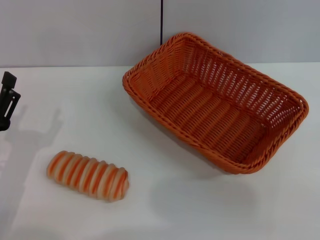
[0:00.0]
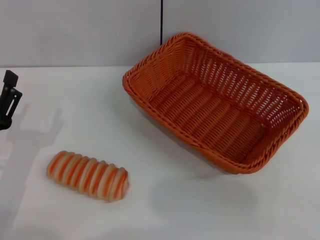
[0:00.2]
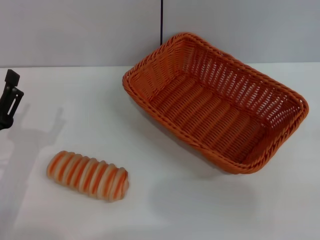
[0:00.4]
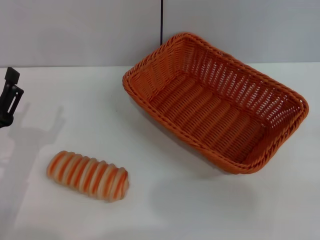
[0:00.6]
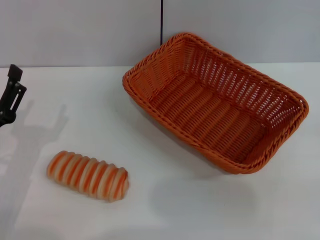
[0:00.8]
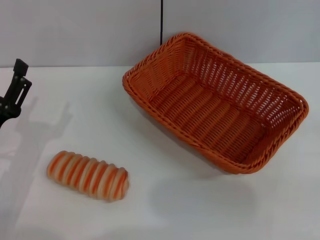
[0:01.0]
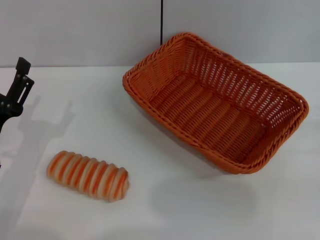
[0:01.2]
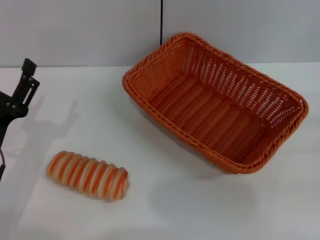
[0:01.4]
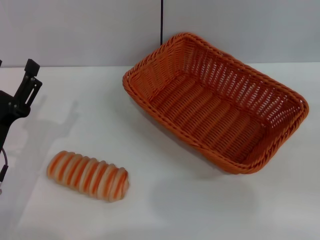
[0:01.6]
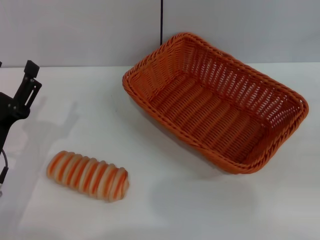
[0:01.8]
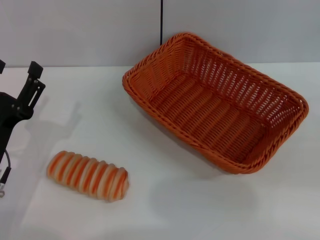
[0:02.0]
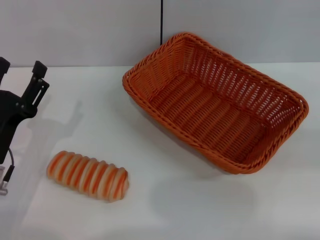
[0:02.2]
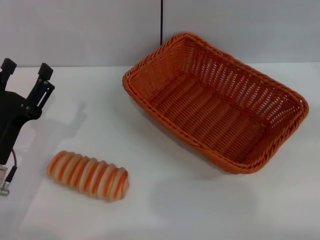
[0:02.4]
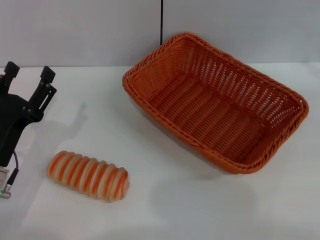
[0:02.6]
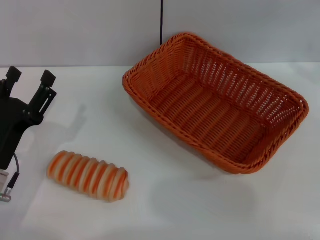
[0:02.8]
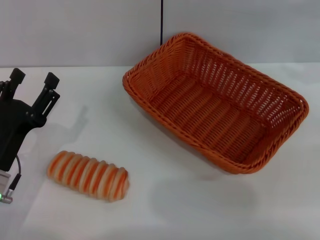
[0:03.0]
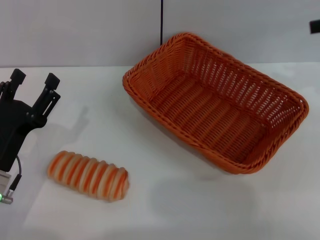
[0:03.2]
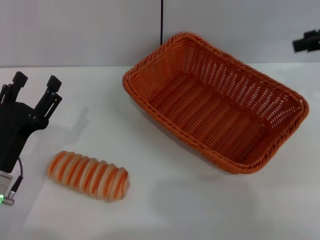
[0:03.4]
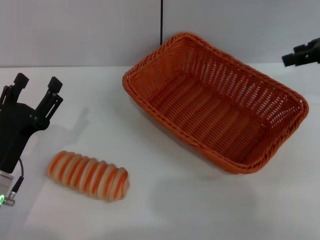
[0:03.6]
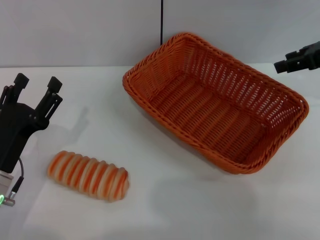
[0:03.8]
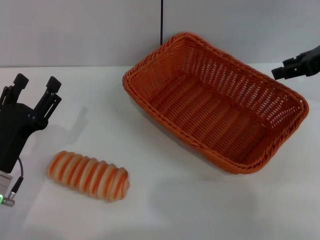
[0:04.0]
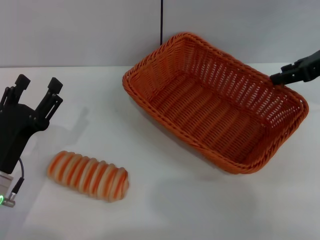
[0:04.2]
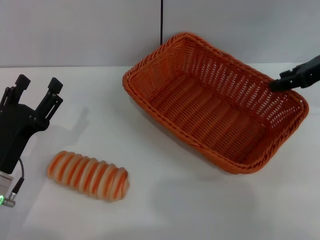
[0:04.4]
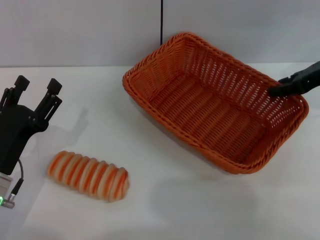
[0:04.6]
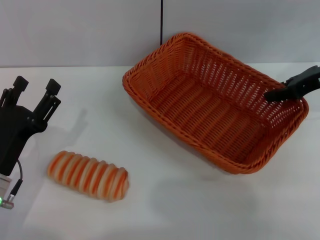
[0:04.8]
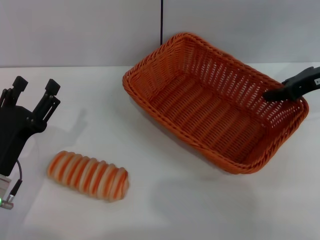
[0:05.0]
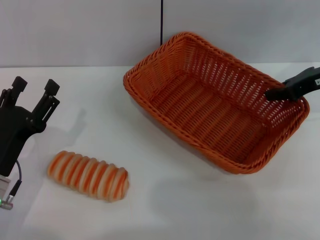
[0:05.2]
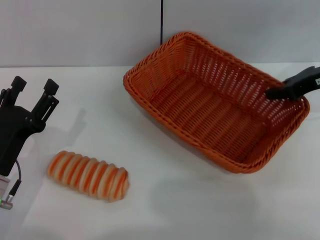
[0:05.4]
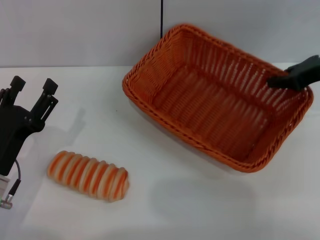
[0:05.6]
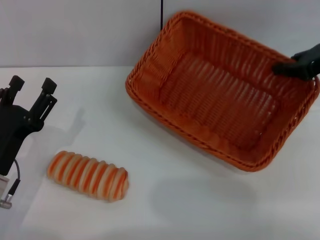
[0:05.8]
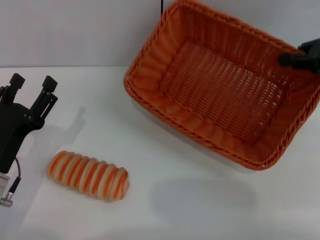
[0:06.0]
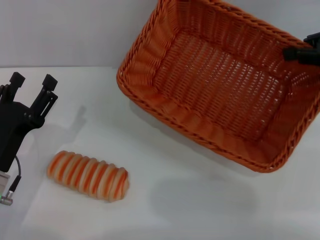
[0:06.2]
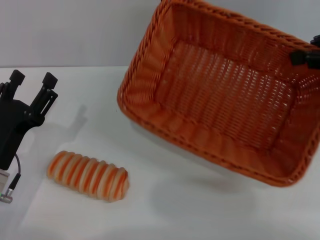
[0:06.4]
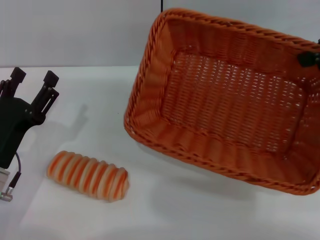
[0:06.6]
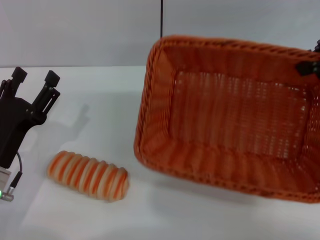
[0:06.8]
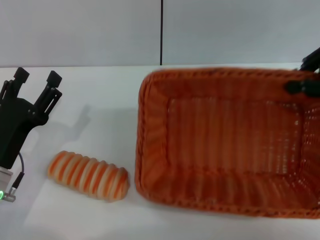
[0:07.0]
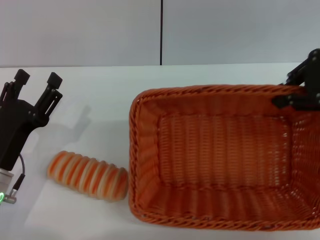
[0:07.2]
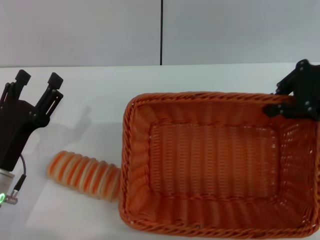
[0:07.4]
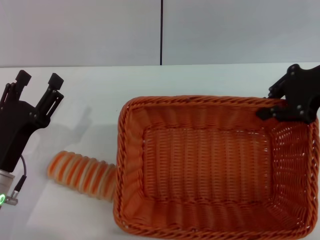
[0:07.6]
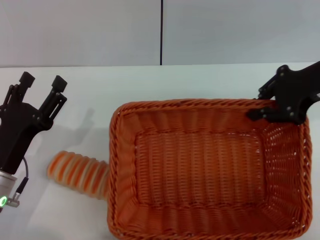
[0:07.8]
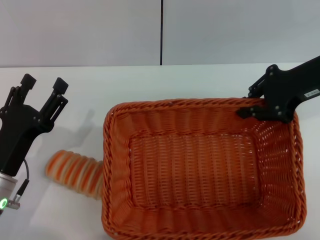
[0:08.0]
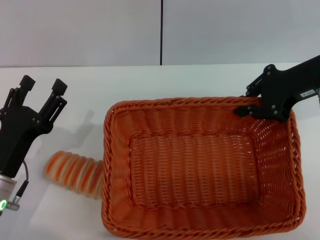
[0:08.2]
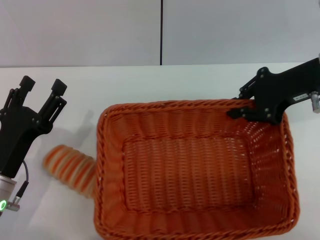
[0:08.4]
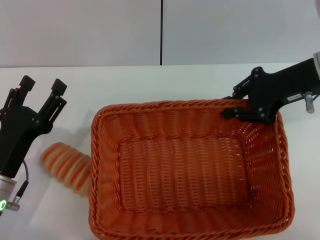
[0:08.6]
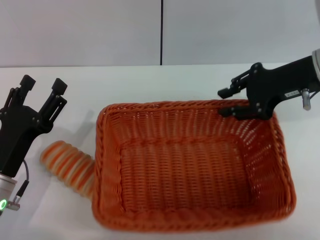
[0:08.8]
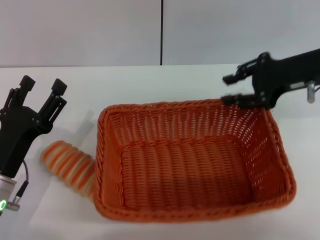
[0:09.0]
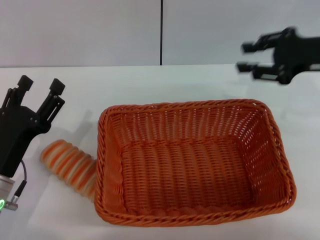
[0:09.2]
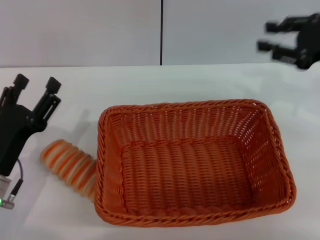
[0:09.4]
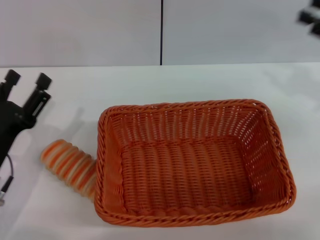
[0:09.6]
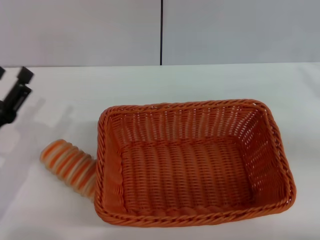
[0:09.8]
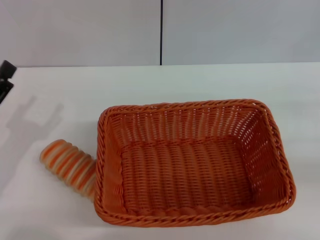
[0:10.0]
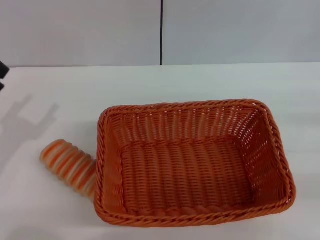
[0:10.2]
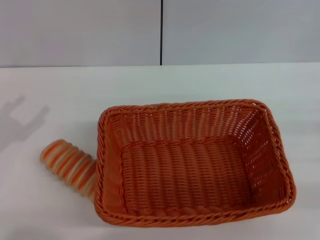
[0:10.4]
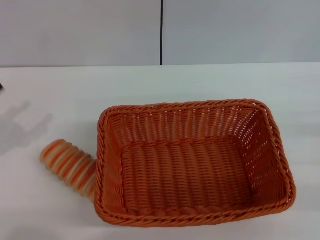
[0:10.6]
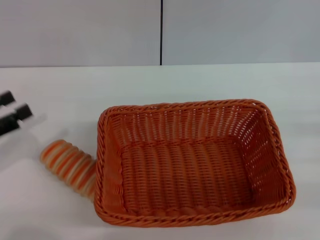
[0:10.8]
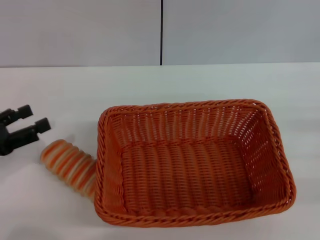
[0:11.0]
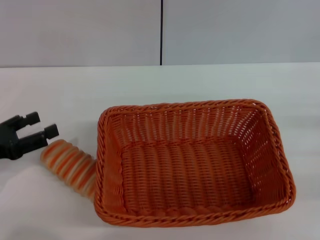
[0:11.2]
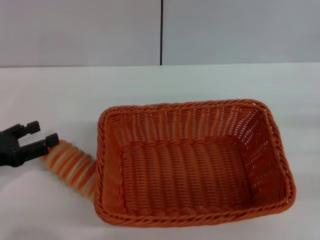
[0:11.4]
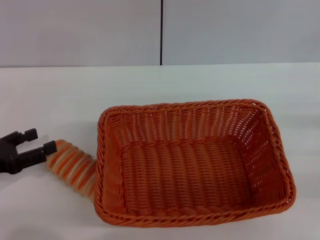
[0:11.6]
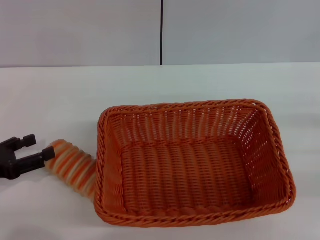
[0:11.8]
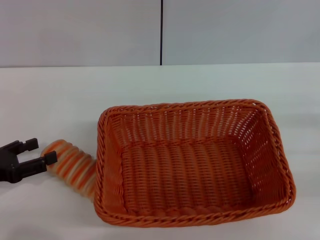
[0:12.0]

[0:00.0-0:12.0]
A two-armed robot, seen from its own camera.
Step, 0:00.0 to 0:06.8: Pick up the light basket with the right gripper.
Step, 0:07.0 to 0:09.0: Place the light basket in the center of view with the right gripper.
0:03.0 to 0:04.4: The right gripper is displaced downward and to the left by roughly 10 cm.
0:04.4 to 0:06.0: The right gripper closes its fingers.
0:07.6 to 0:09.0: The right gripper opens.
0:09.0 to 0:10.4: The right gripper goes roughly 25 cm to the right, backward and downward. Meanwhile the left gripper shifts some 10 cm to the left.

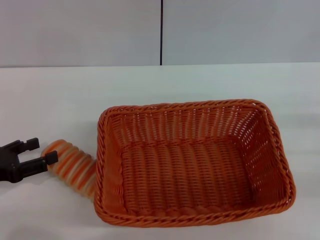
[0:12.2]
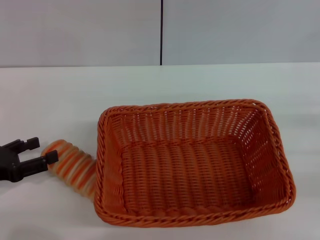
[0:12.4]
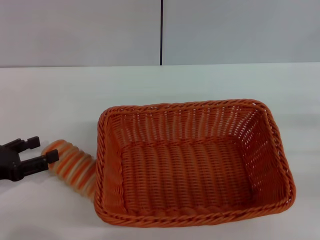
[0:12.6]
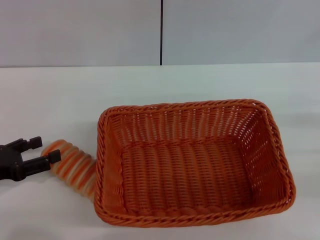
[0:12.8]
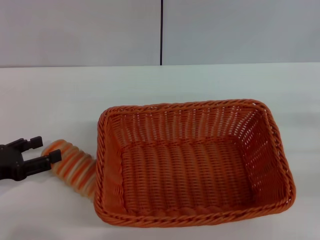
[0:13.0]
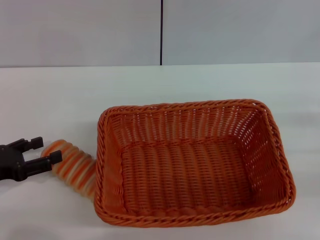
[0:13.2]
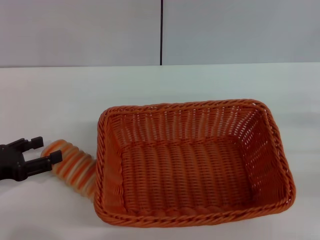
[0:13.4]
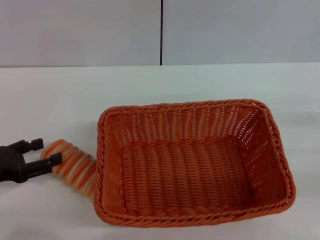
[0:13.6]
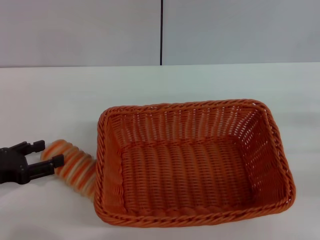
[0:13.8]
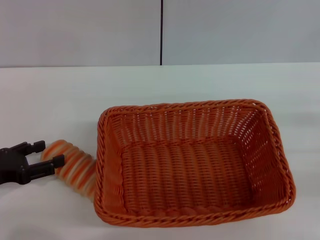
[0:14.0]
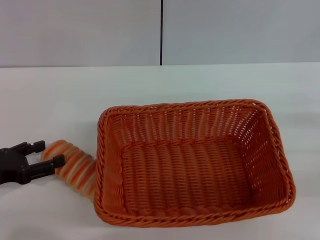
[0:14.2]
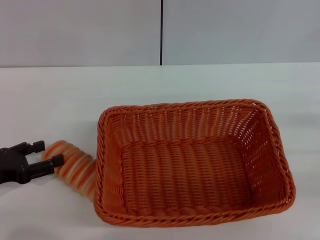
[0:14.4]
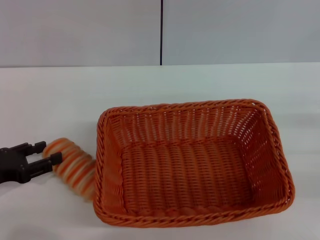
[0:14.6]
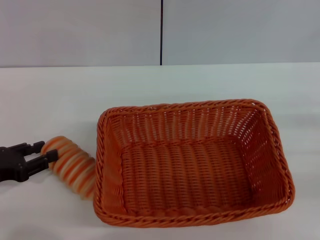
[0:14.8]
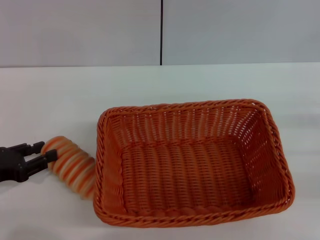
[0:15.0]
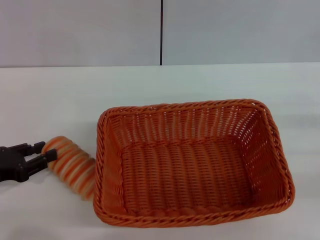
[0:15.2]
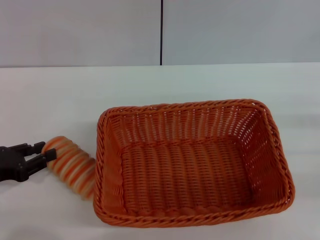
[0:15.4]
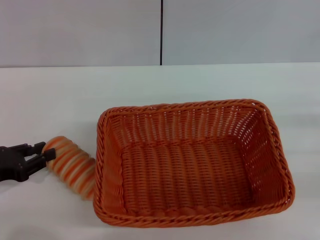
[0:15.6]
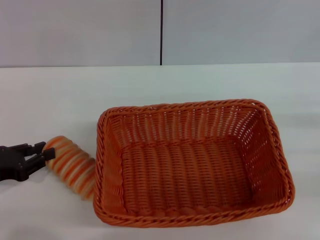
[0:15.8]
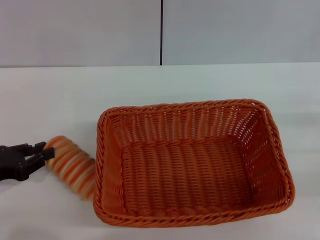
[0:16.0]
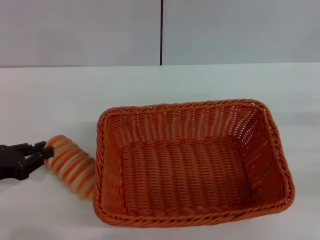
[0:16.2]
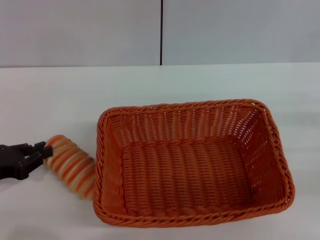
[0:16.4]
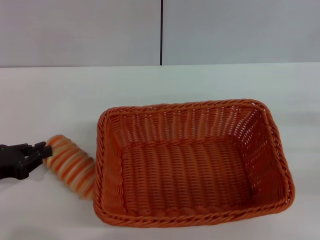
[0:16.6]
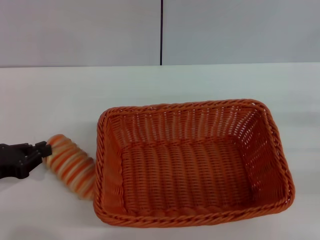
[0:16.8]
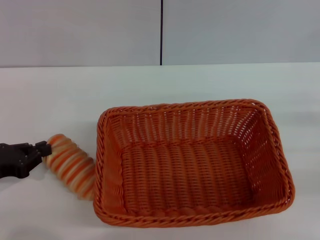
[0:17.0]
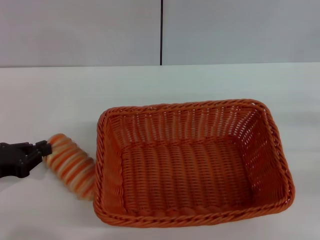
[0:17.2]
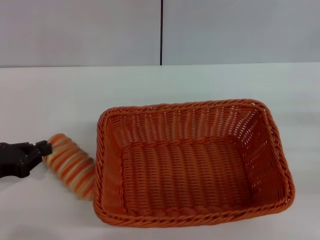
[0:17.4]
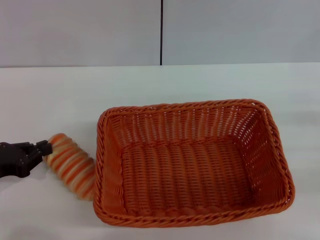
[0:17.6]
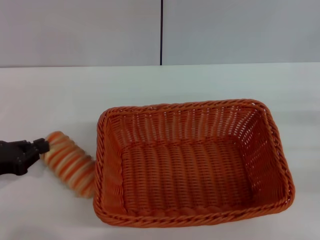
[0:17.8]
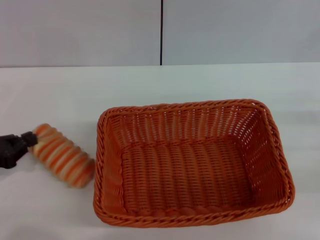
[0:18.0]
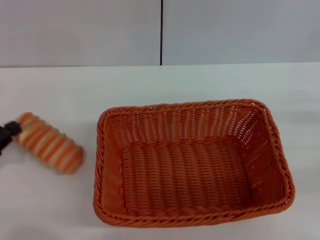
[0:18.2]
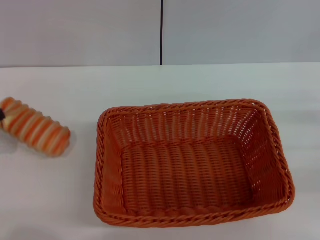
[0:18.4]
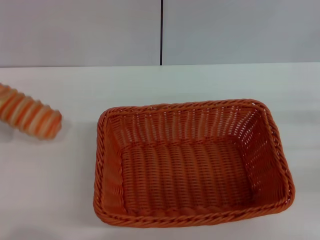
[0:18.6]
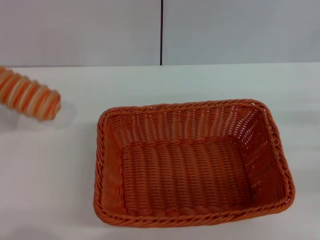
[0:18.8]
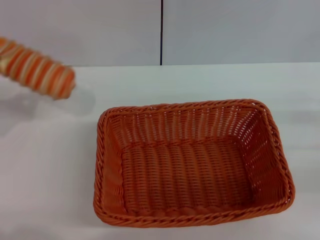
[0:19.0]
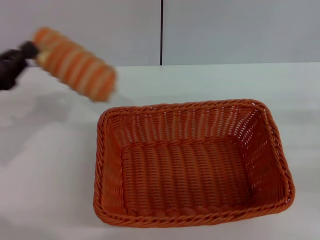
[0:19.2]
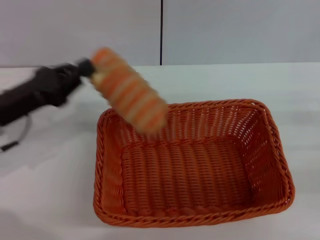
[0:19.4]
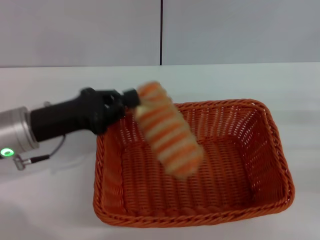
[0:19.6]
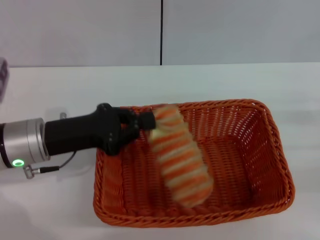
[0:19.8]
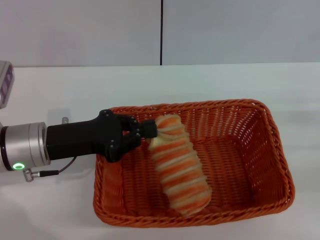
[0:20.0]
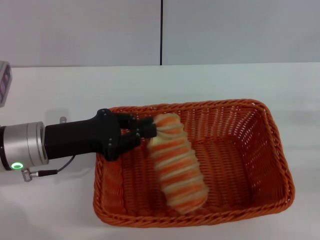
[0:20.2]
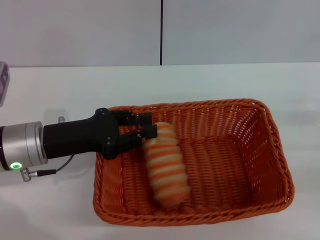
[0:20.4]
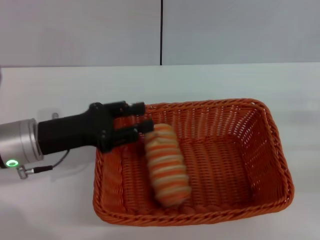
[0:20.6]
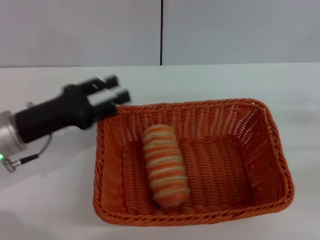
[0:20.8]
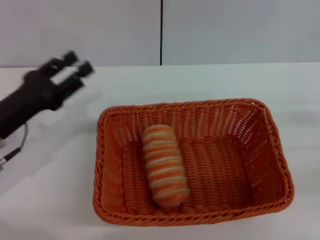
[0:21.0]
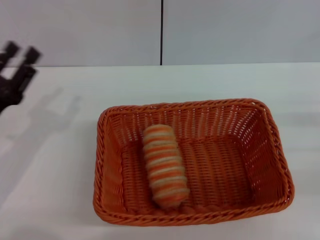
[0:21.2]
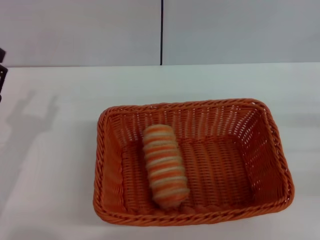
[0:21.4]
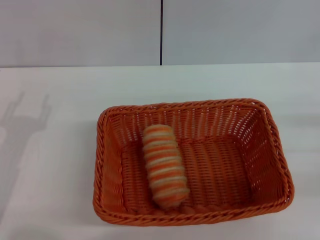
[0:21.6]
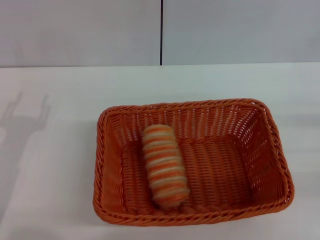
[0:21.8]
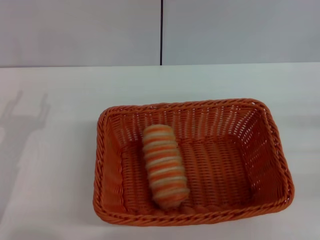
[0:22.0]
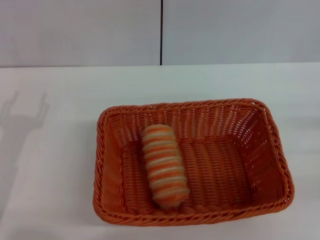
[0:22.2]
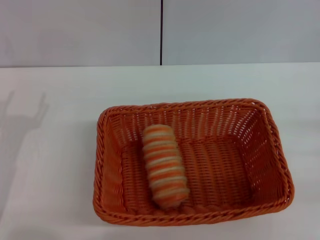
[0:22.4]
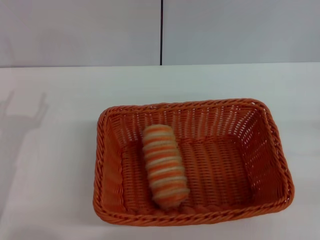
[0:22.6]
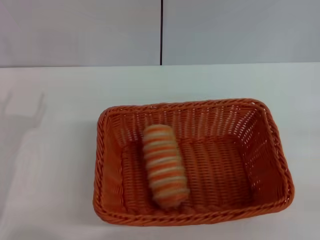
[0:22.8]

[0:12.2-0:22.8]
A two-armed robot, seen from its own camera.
Step, 0:12.2 to 0:18.6: Pick up the long bread with the left gripper.
Step, 0:18.8 to 0:20.6: Place the long bread into the light basket with the left gripper.
0:12.2 to 0:13.8: The two grippers keep their place.
0:13.8 to 0:15.2: The left gripper closes its fingers.
0:15.2 to 0:16.8: The left gripper closes its fingers.
0:16.8 to 0:18.2: There are only small adjustments of the grippers.
0:18.2 to 0:19.8: The left gripper goes roughly 15 cm to the right.
0:19.8 to 0:21.2: The left gripper shifts some 5 cm to the left, and opens its fingers.
